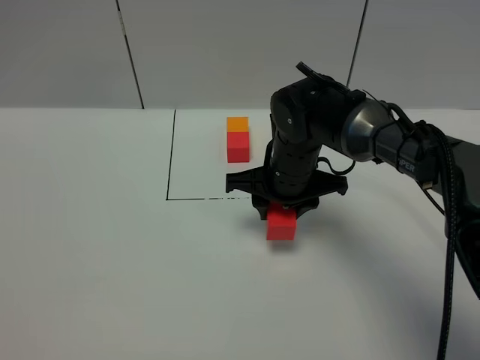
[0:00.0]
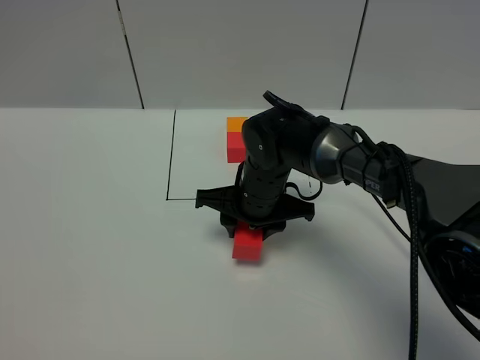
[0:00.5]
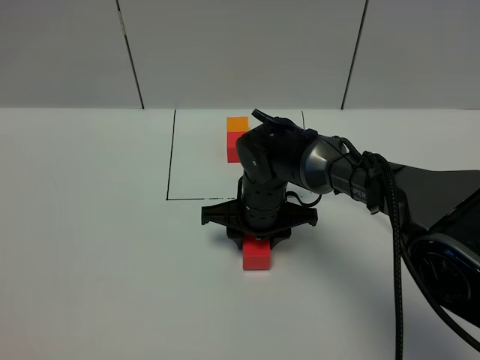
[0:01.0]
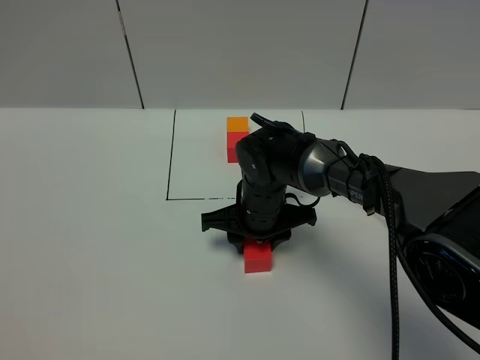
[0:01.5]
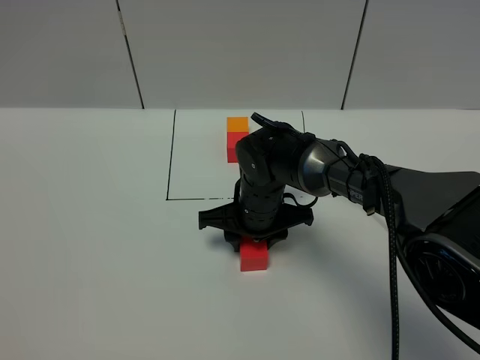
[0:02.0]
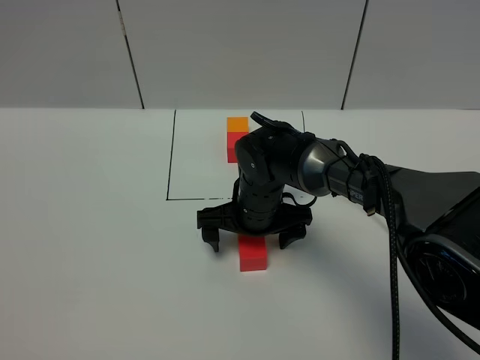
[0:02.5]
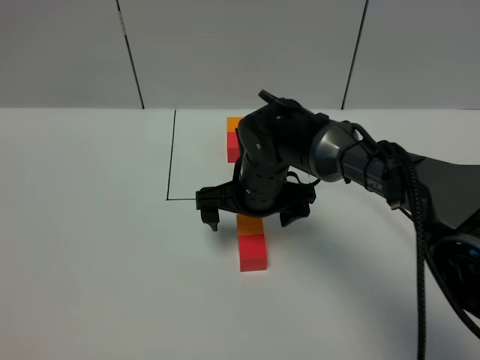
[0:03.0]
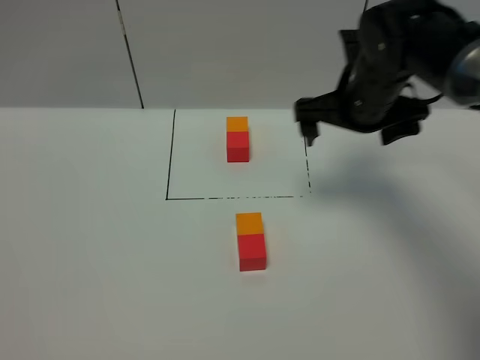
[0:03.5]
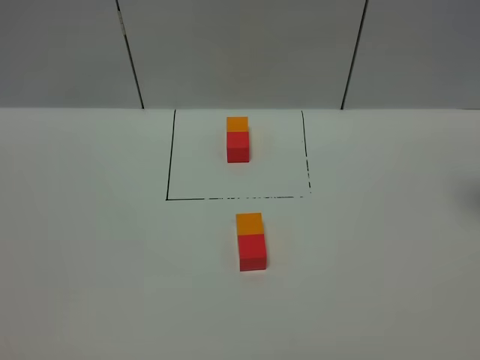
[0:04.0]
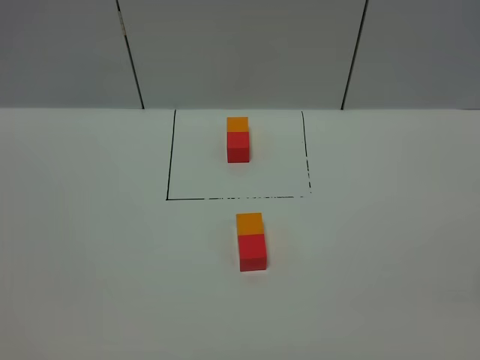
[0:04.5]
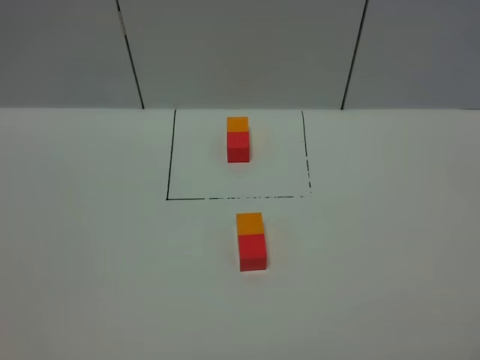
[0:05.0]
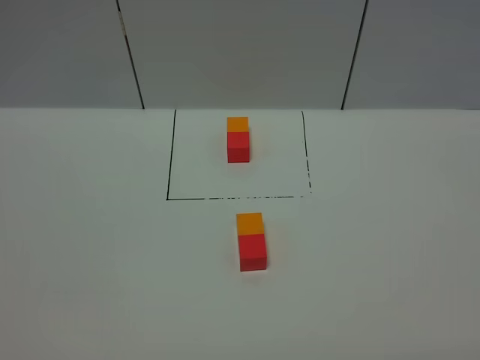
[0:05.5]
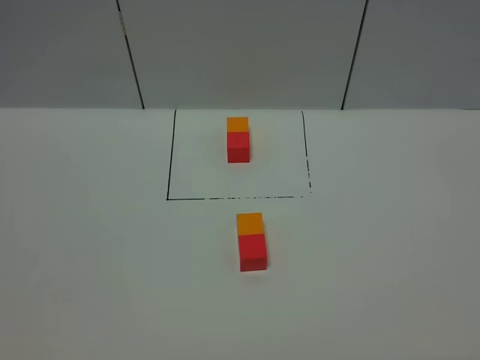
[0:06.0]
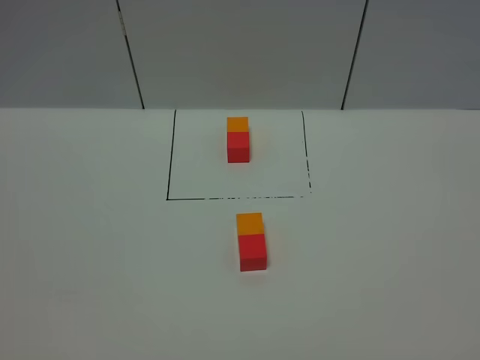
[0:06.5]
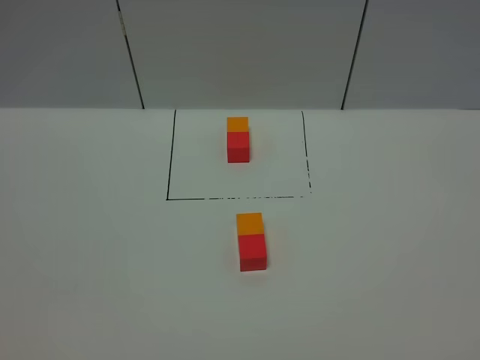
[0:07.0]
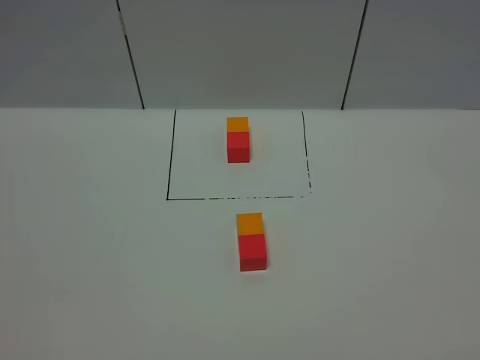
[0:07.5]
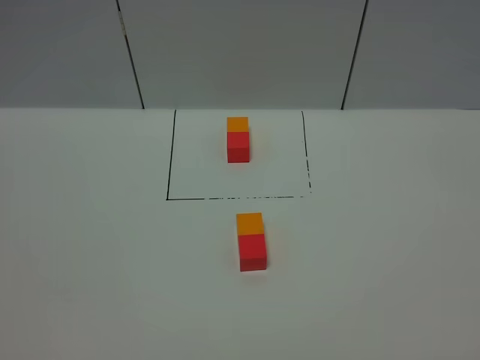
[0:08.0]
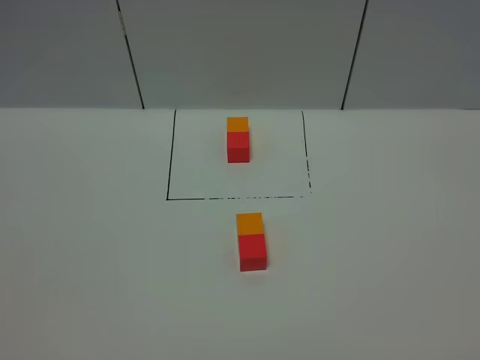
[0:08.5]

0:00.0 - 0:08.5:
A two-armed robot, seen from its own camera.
Task of the whole recording: According to the building block template in front, assemble the scattered blocks together.
Step, 0:00.0 - 0:03.0: Adjust the pose of the building blocks.
0:00.0 - 0:02.0: The right gripper moves downward, approximately 5 cm.
0:02.0 - 0:04.0: The right gripper is displaced to the right and upward by roughly 40 cm, and opens its fingers.
0:06.5 - 0:08.5: The two grippers keep their place.
